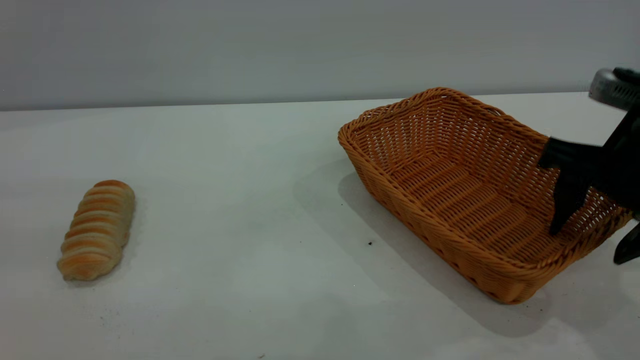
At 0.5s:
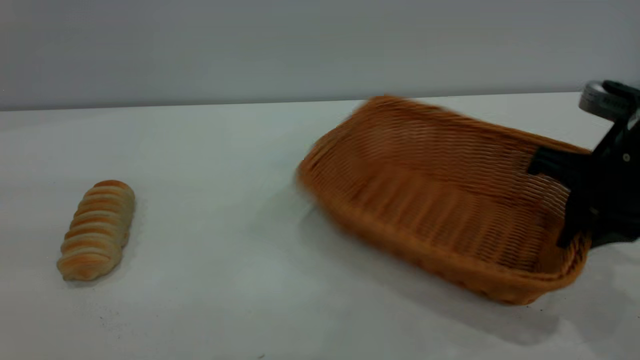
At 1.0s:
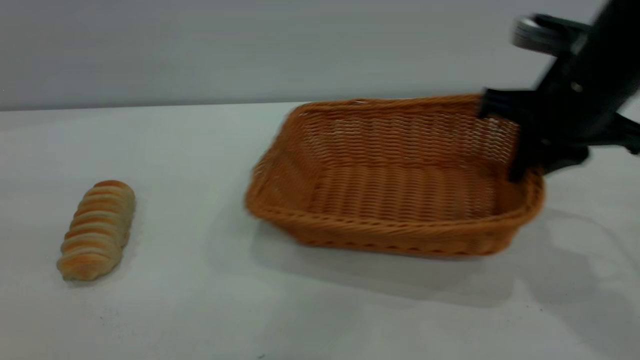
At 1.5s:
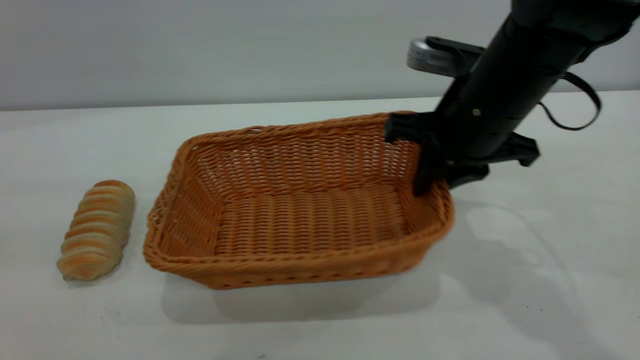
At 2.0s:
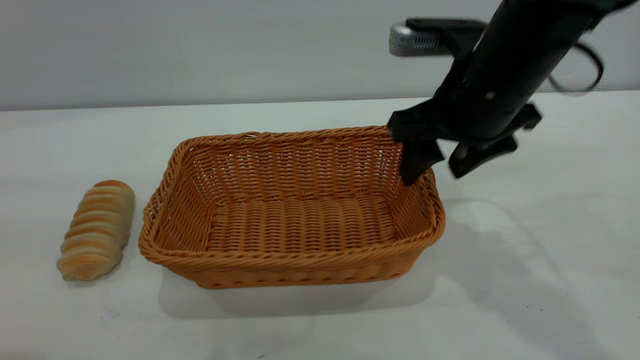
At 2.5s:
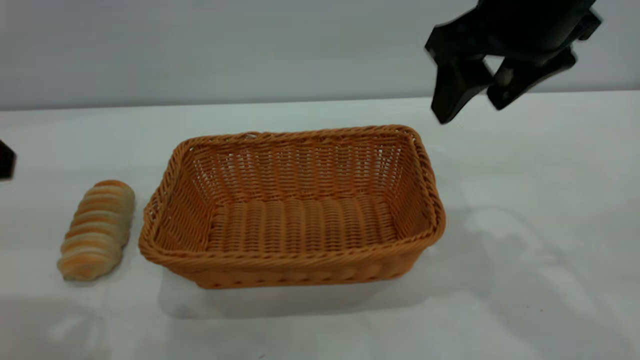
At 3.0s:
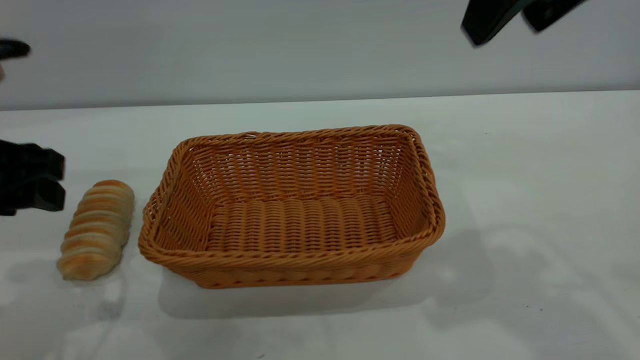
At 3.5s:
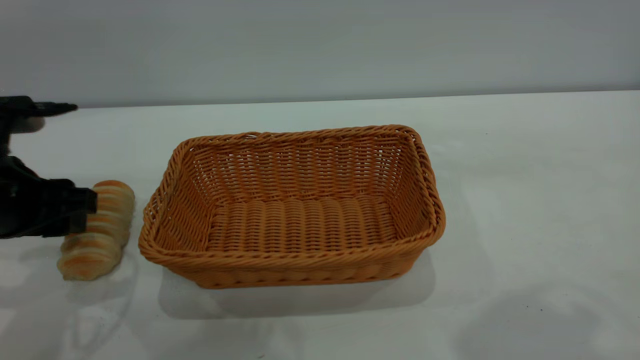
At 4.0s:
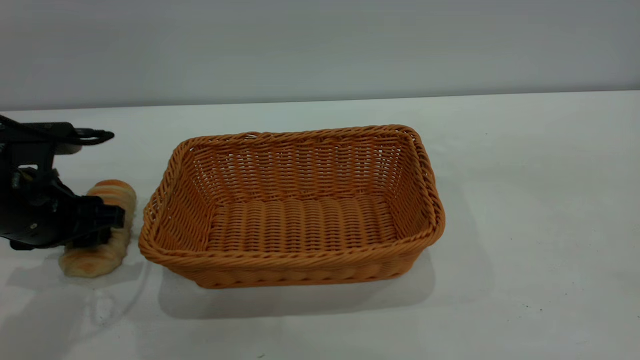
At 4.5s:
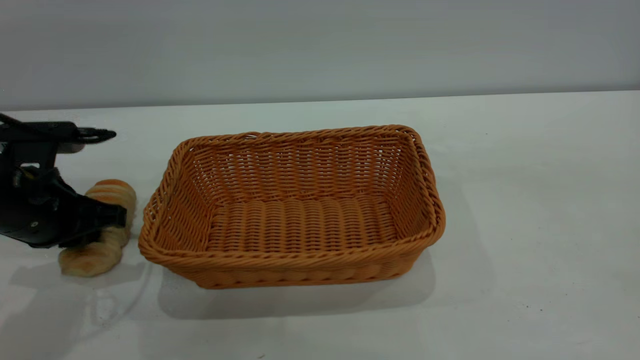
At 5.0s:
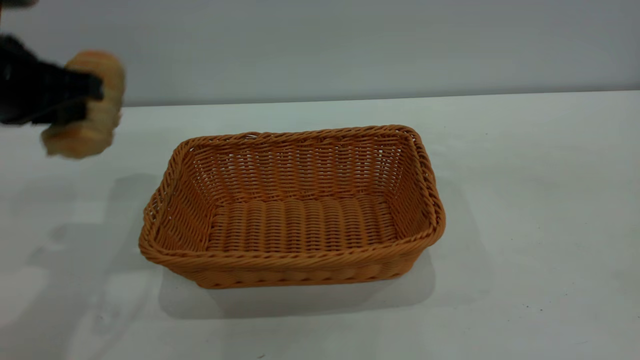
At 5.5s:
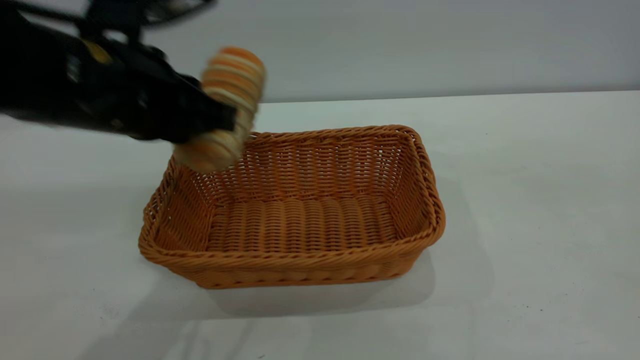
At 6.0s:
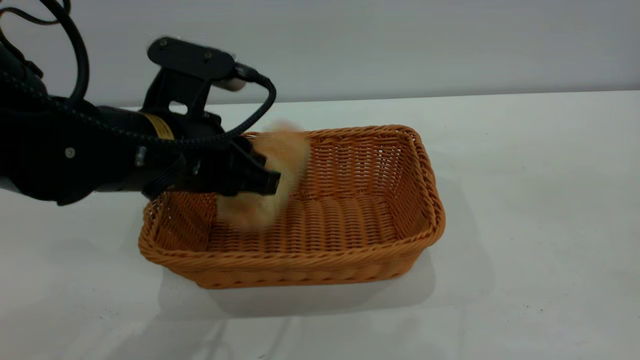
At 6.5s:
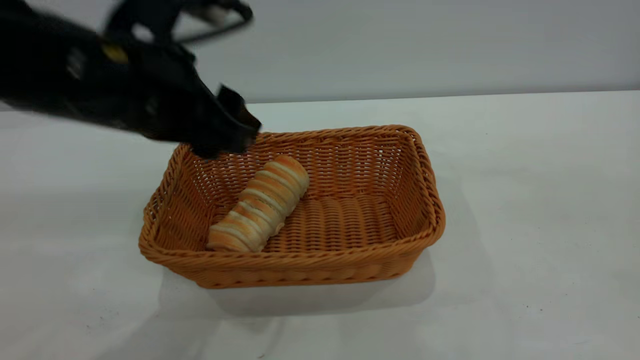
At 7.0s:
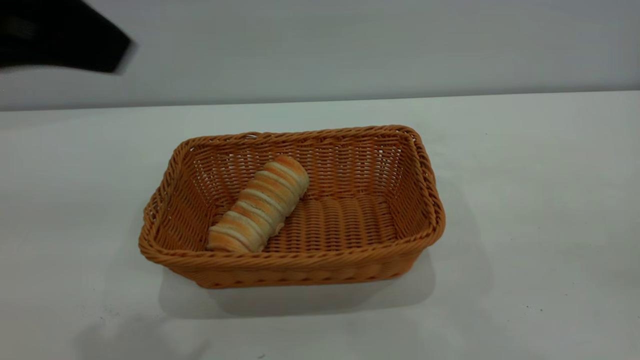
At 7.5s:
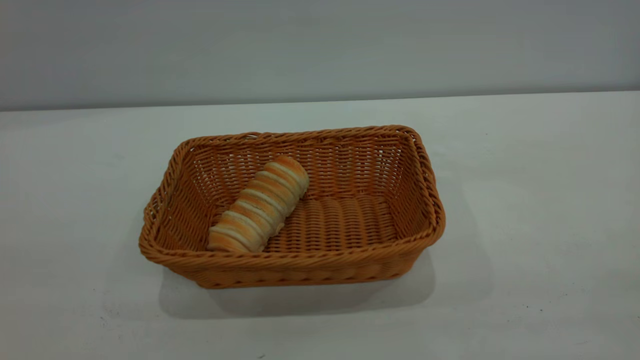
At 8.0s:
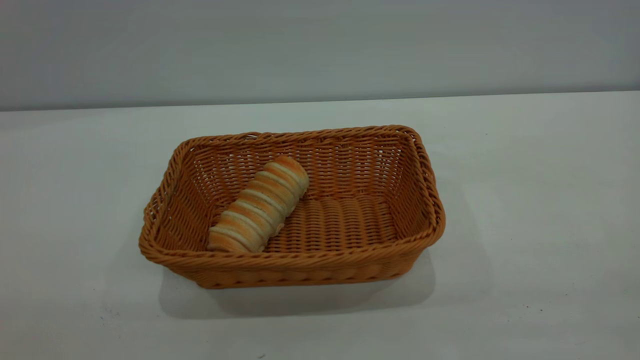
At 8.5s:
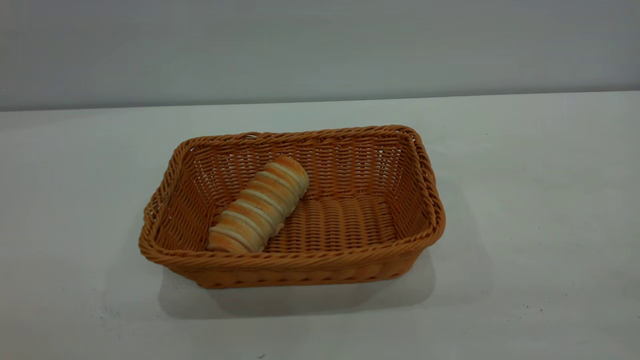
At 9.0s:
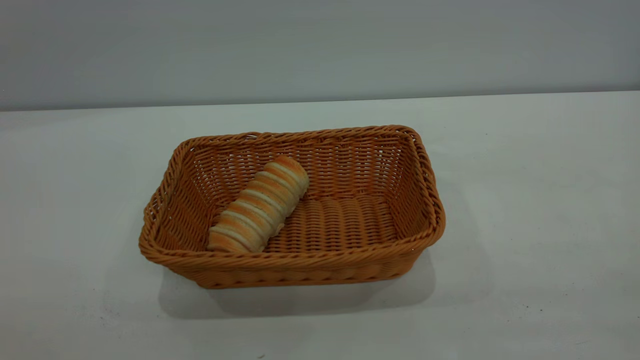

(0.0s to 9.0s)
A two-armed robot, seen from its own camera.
Task of the whole recording: One hand grasps the yellow basket and places it in the middle of the table, while the other hand picks up the long bread and puts it into the yellow basket.
Step, 0.0s - 2.0s: Move the basket to the center of view.
Step, 5.0s - 6.5s: place the bread into the basket.
0.0s - 2.0s: The right gripper is displaced to the left and forward by approximately 10 cm, and closes, then opens again.
2.0s - 4.5s: The left gripper moves downward and forward, roughly 25 cm, and closes up. Meanwhile the right gripper moves upward and backward, about 35 cm.
4.5s - 7.0s: The right gripper travels backward and downward by about 10 cm. The left gripper swings up and down, about 25 cm each way, with 2 reversals, and opens.
7.0s - 9.0s: The left gripper moves backward and to the left, some 20 cm.
